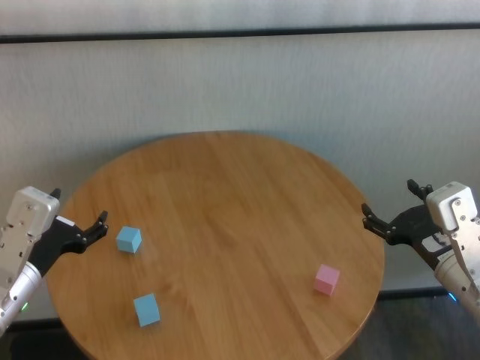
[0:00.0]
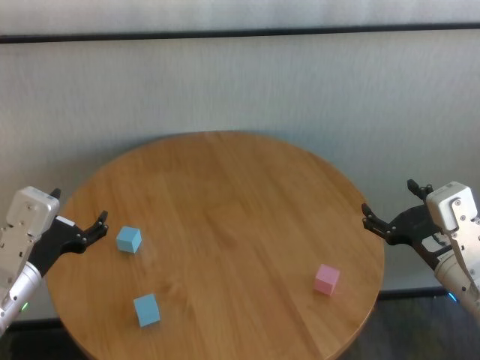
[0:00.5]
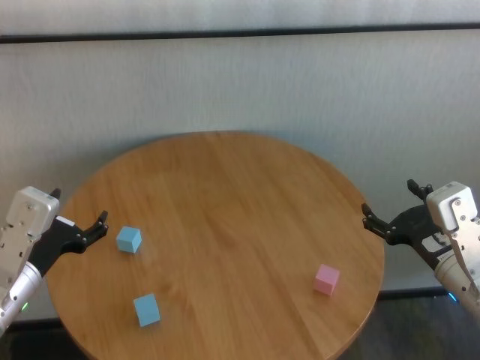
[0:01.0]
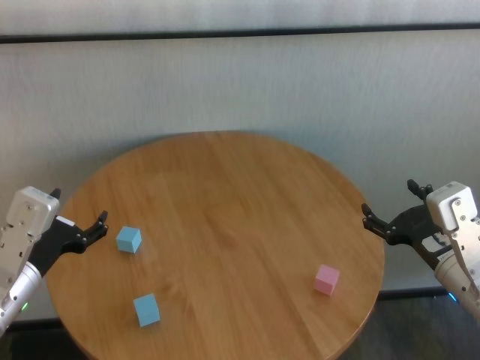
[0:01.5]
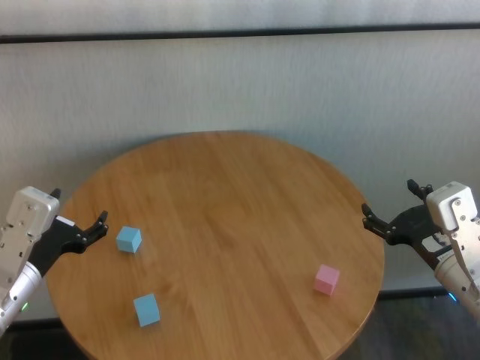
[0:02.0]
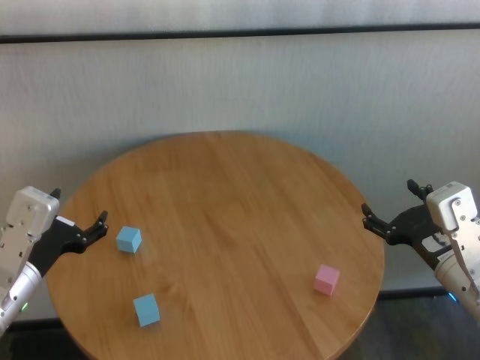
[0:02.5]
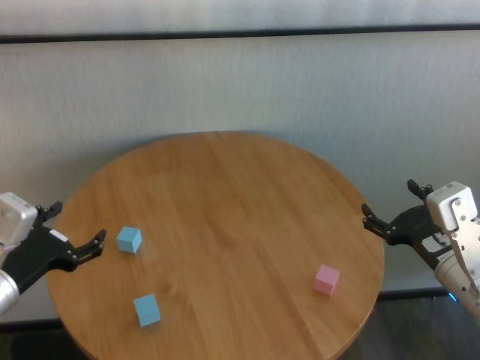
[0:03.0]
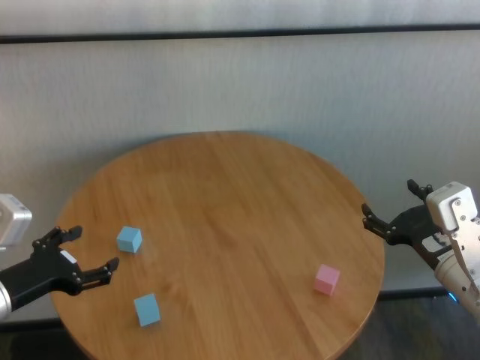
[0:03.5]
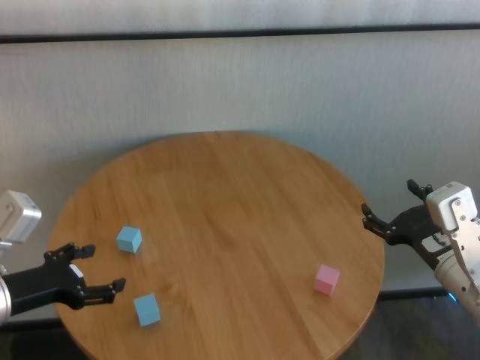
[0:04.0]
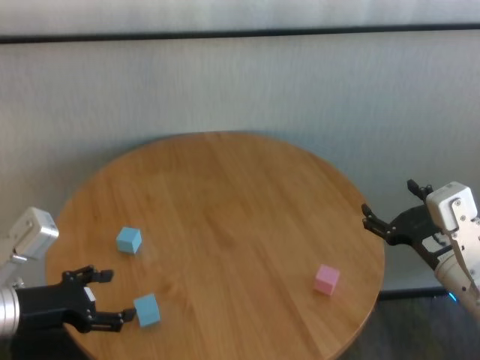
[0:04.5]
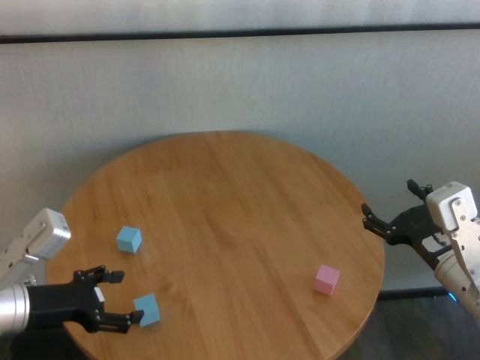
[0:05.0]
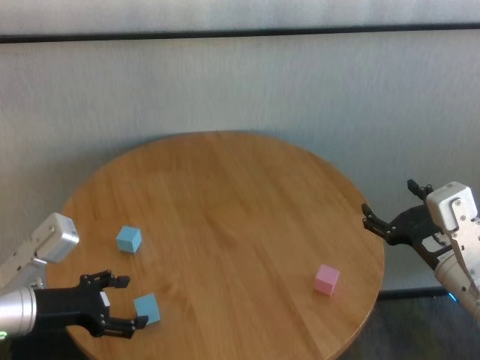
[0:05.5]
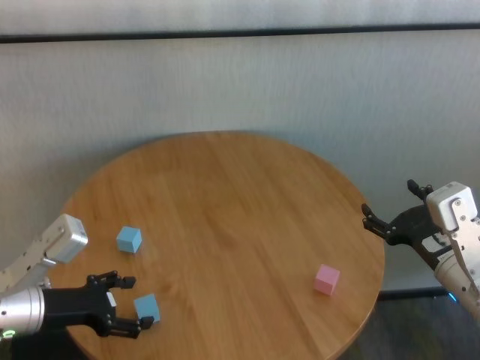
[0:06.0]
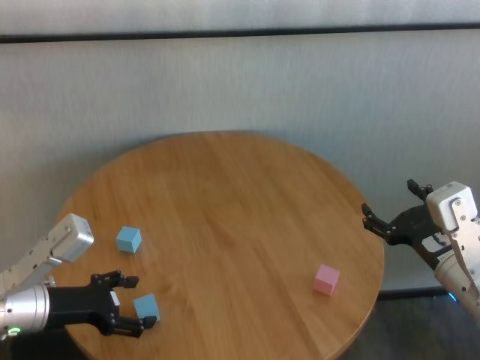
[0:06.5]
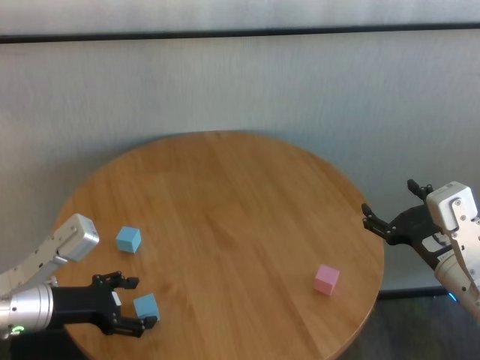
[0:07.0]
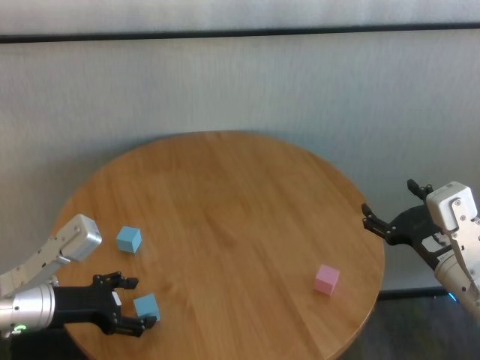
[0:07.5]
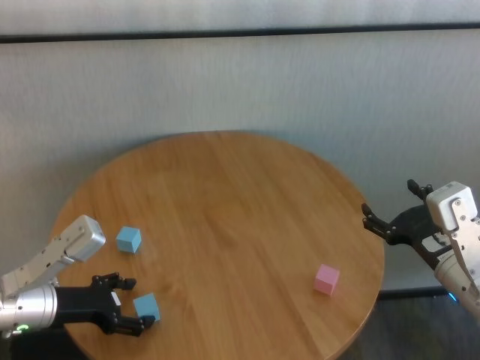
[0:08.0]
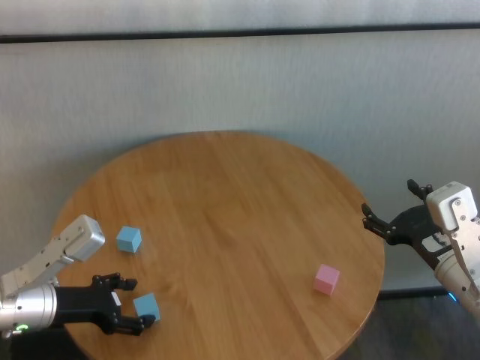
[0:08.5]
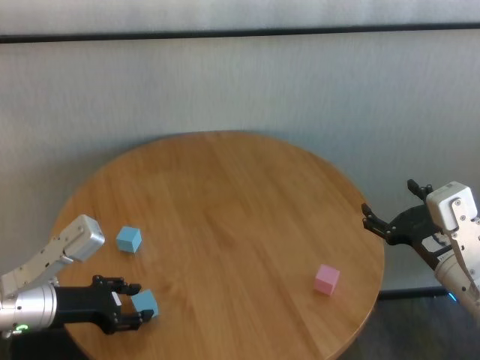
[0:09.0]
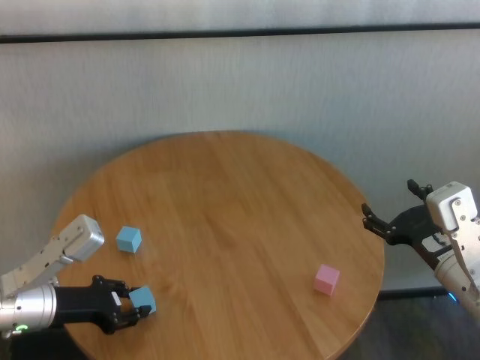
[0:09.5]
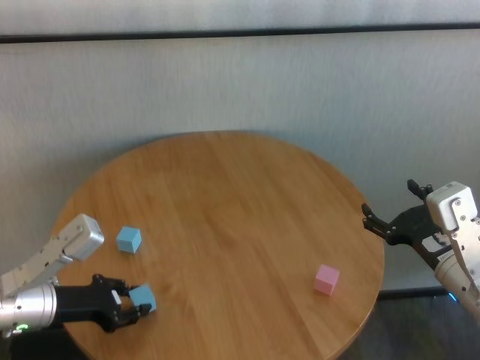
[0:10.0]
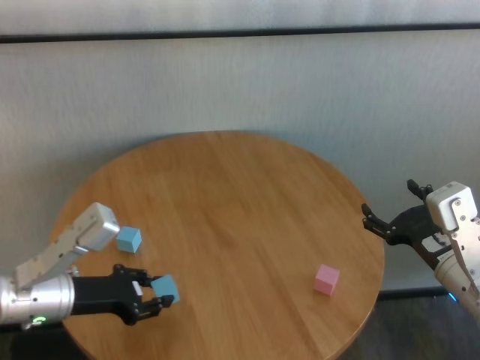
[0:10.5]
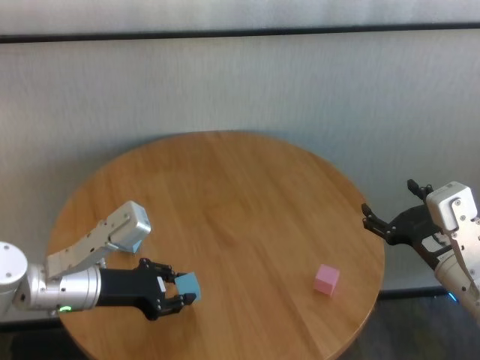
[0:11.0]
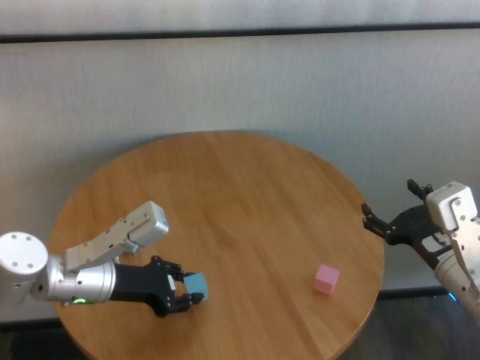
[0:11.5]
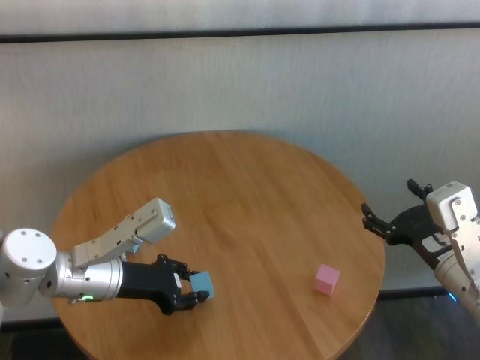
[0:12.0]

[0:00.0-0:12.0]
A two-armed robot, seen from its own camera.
Task of the whole recording: stack building blocks on the table.
Step, 0:00.0 to 0:09.0: Grasp the blue building block with left gripper.

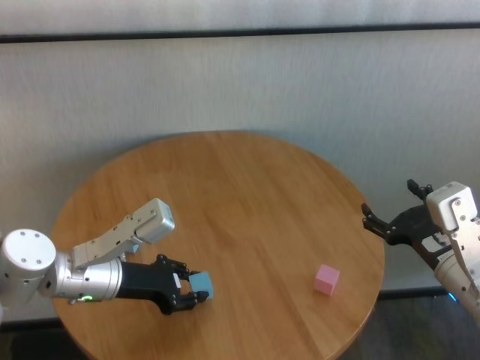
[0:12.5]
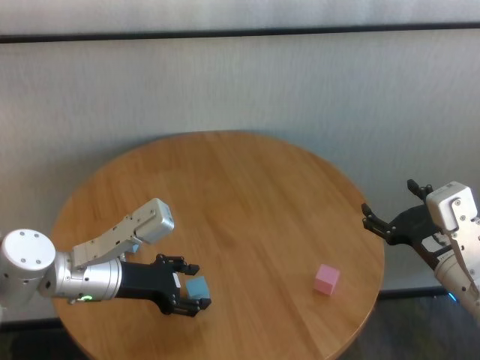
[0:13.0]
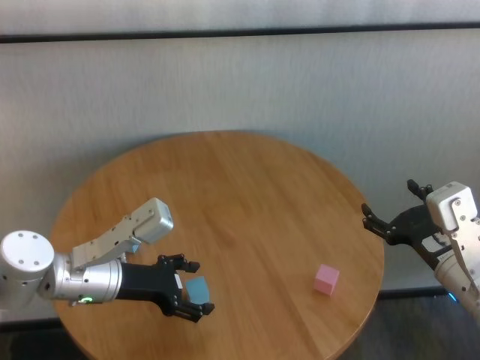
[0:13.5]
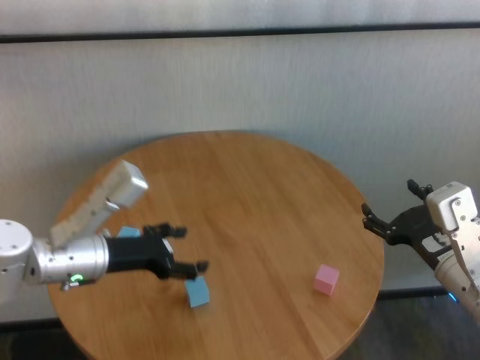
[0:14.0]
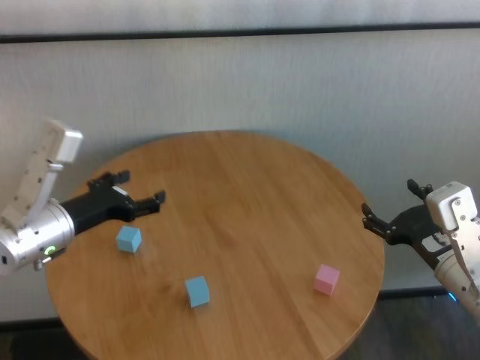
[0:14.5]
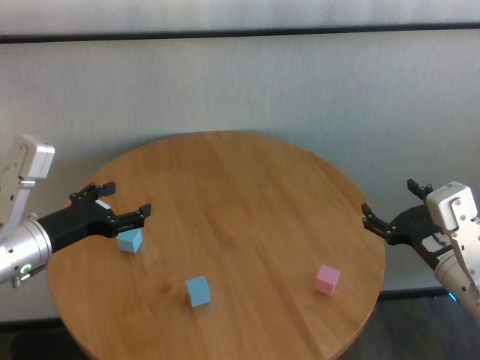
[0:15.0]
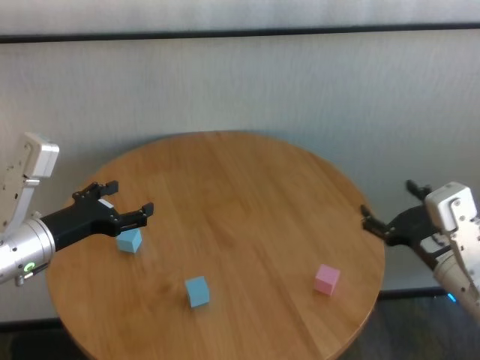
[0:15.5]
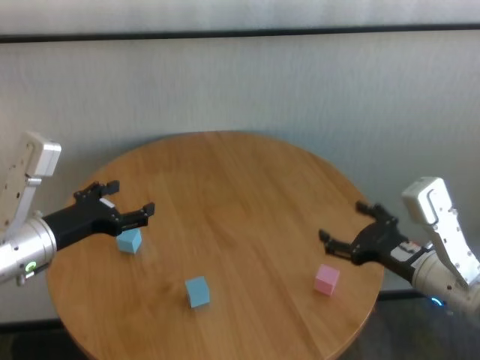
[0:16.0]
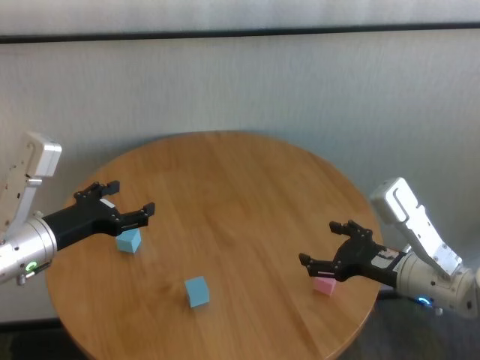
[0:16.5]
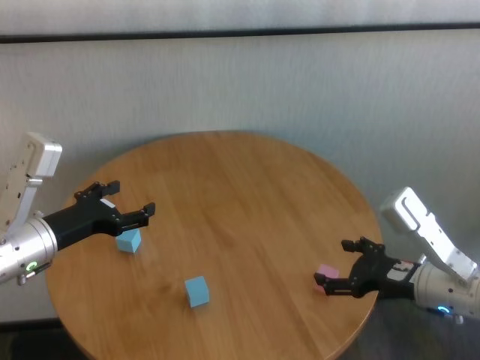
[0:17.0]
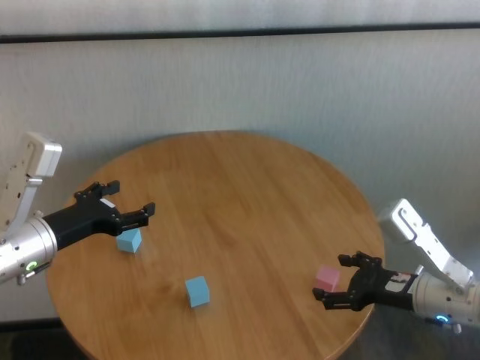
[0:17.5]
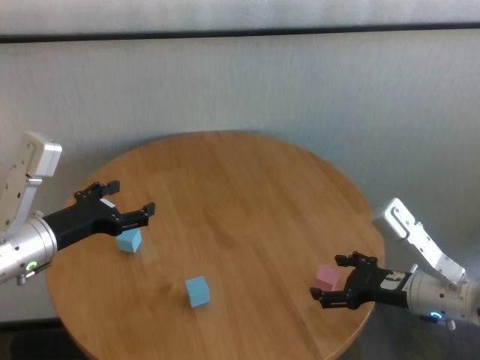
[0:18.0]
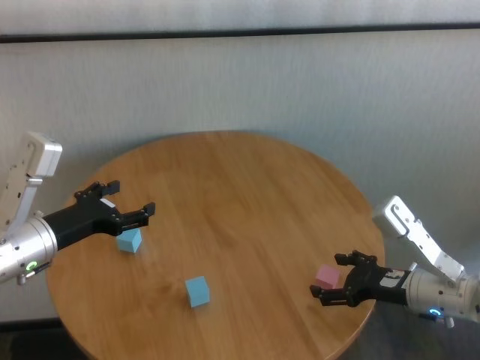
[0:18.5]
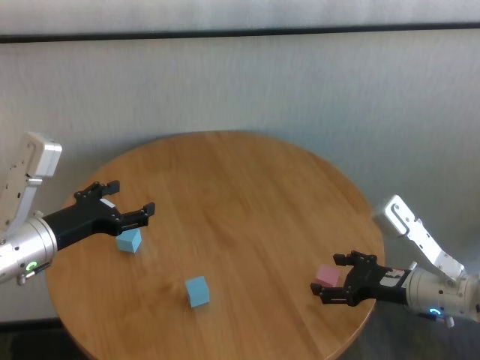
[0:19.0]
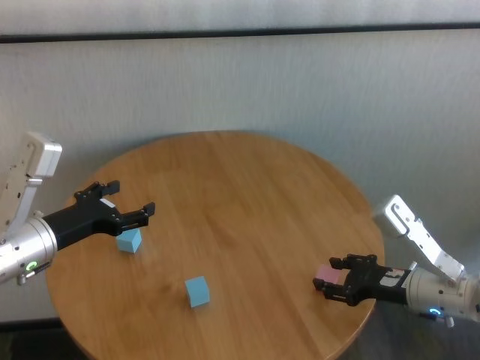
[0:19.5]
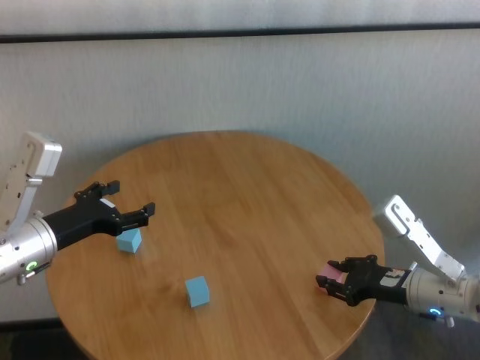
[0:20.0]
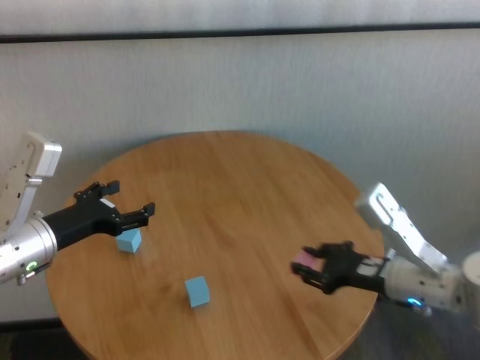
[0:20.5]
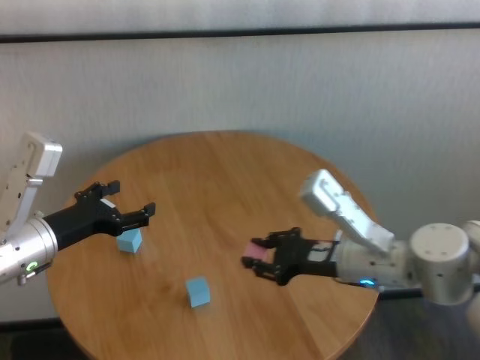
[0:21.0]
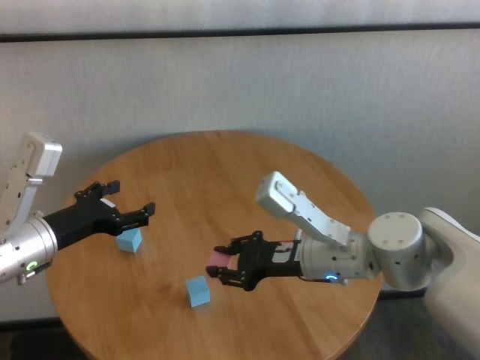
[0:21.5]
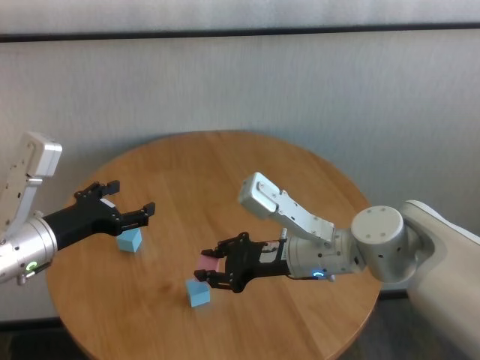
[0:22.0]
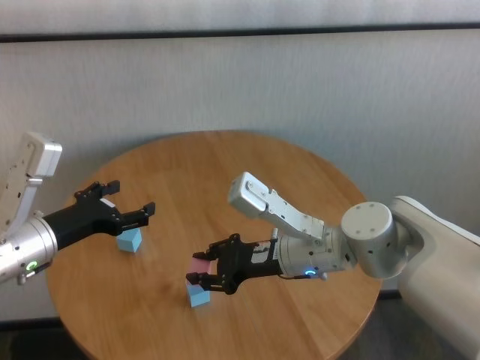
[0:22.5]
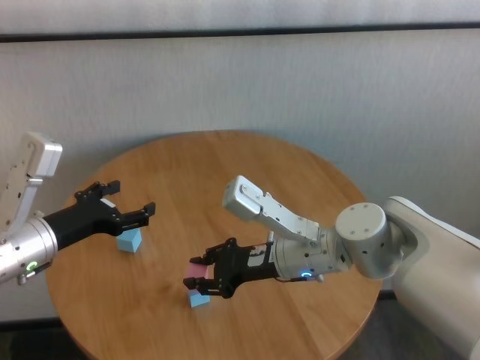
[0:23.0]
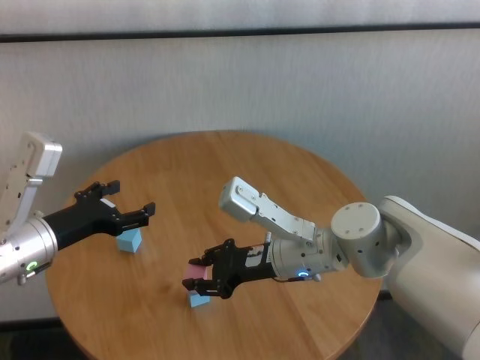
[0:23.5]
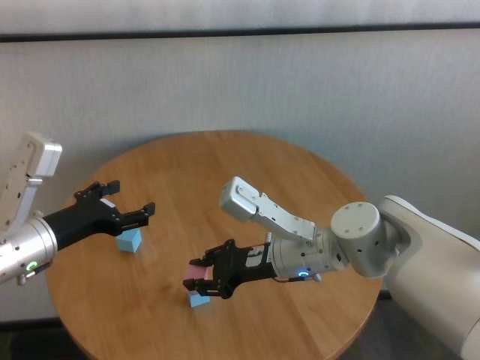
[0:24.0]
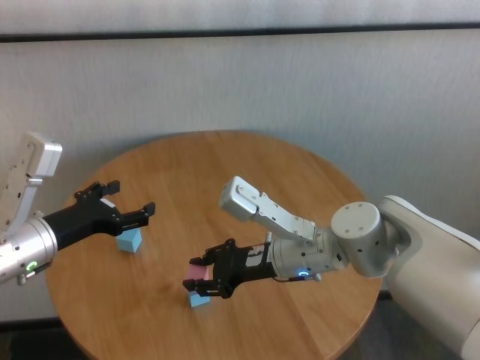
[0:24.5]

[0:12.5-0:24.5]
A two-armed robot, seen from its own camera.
Task of the whole recording: stack building blocks on the table.
Step, 0:13.5 to 0:19.5: Grasp the pink building block with right gripper.

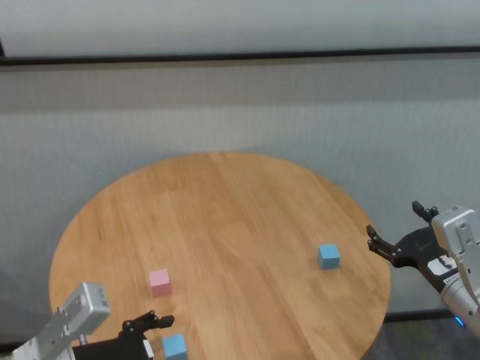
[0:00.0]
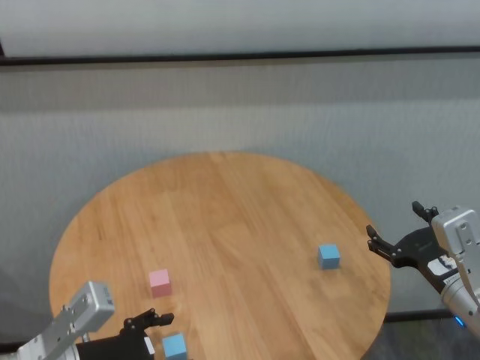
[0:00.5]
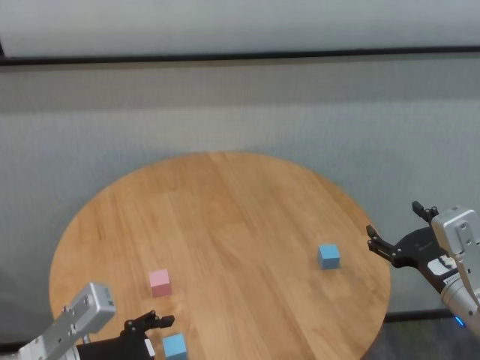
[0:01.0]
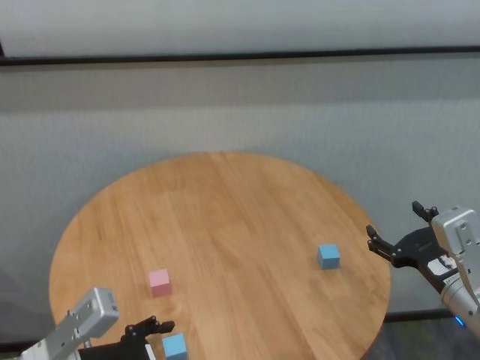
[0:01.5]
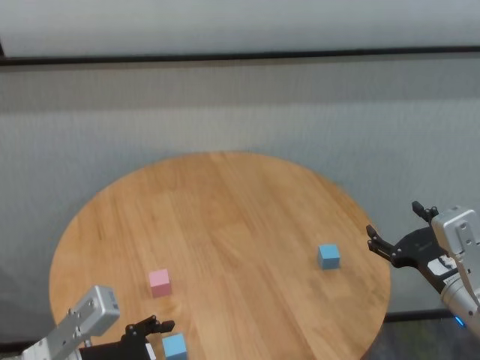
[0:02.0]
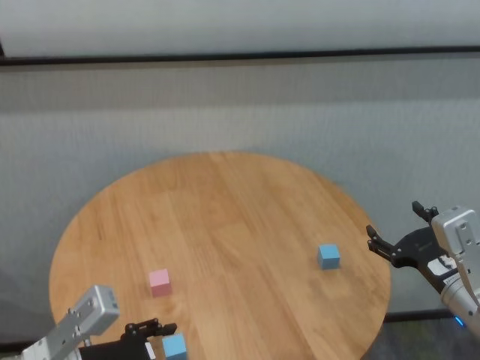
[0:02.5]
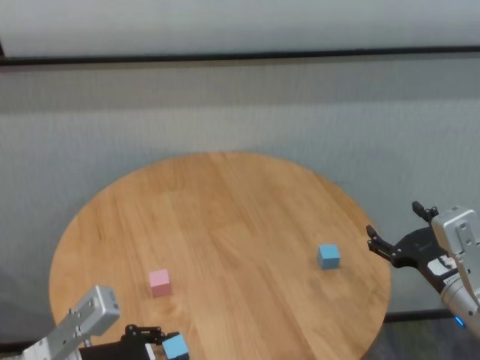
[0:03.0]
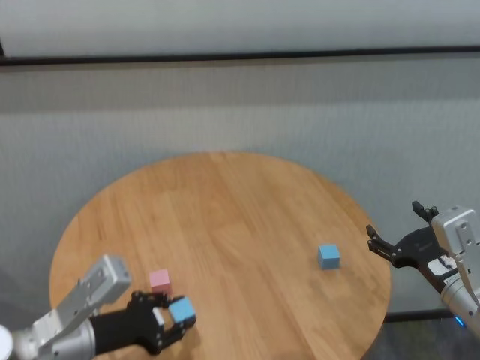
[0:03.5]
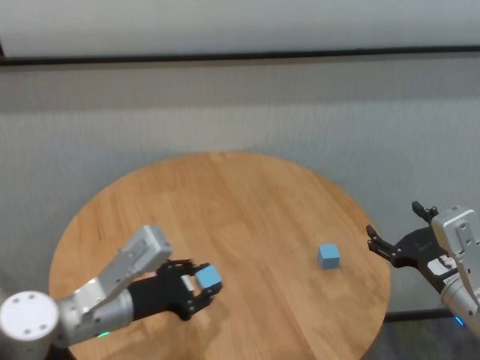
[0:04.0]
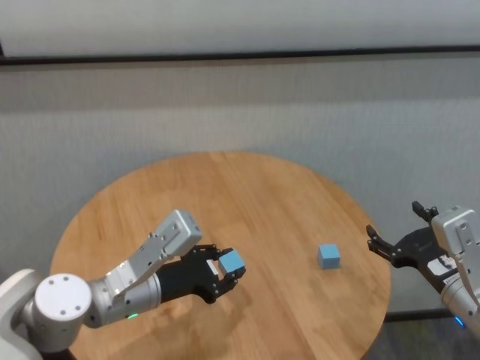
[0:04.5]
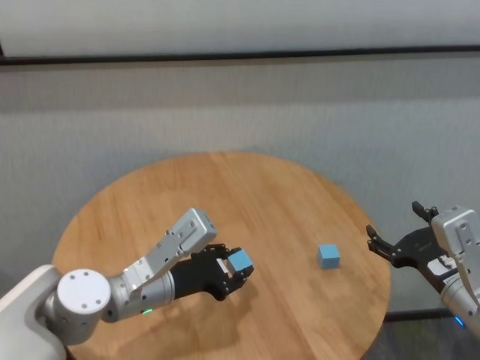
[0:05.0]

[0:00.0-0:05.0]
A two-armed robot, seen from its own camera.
Task of the whole recording: stack building blocks on the table.
Step, 0:00.0 to 0:02.5: Grasp the blue building block with left gripper.
